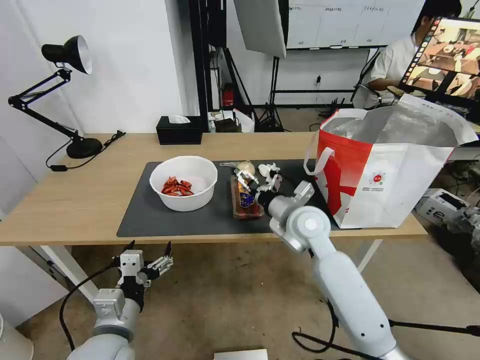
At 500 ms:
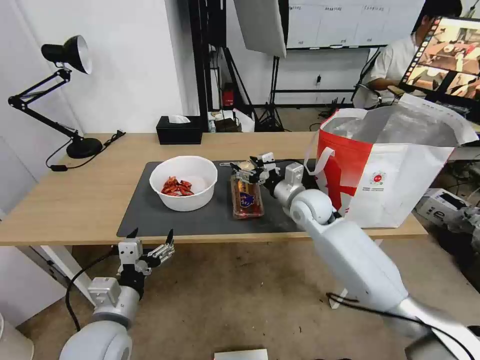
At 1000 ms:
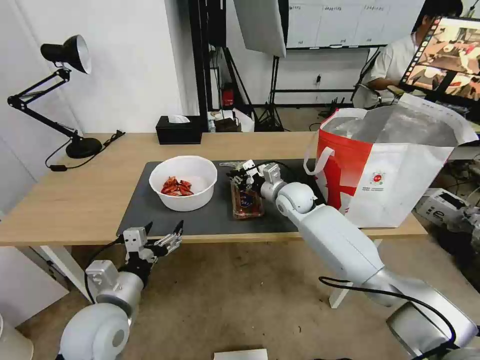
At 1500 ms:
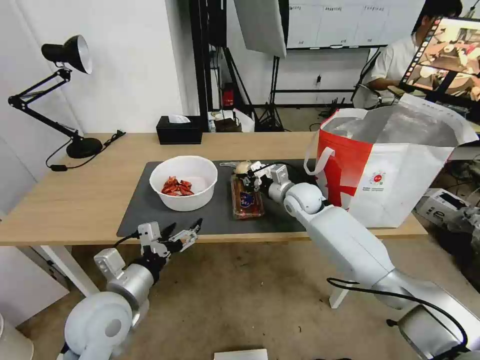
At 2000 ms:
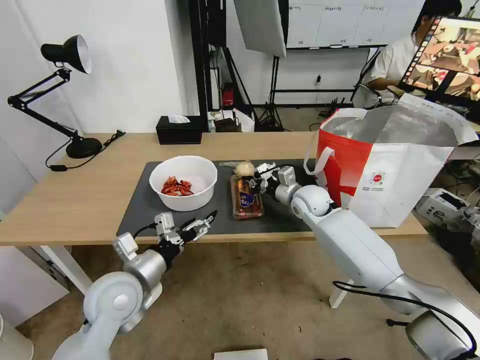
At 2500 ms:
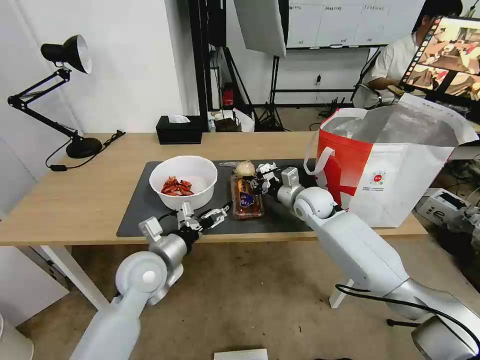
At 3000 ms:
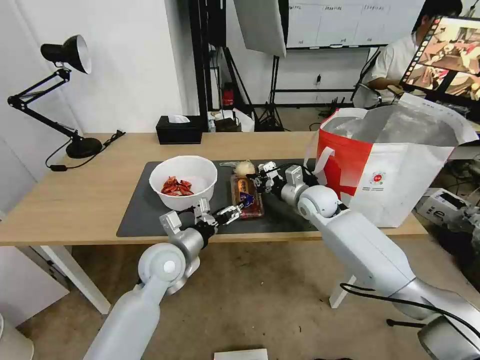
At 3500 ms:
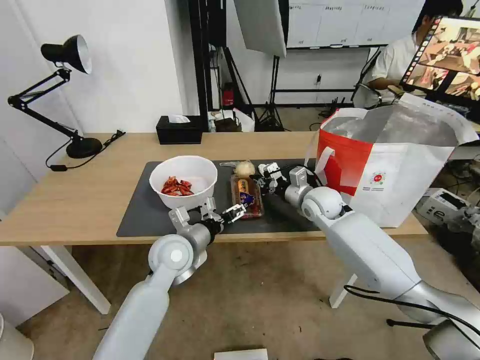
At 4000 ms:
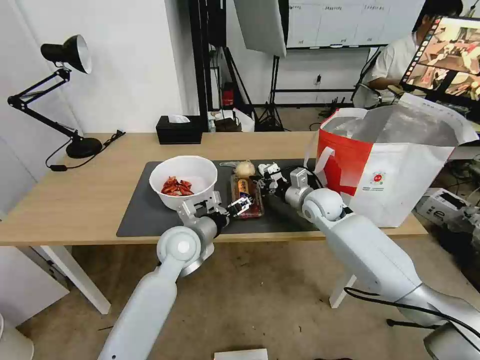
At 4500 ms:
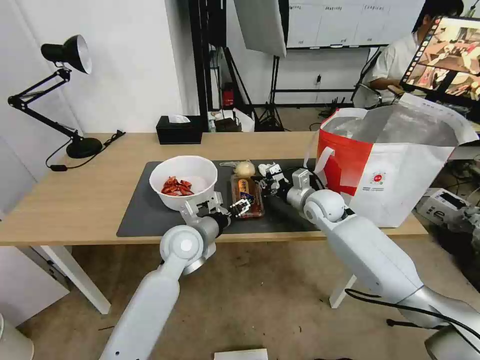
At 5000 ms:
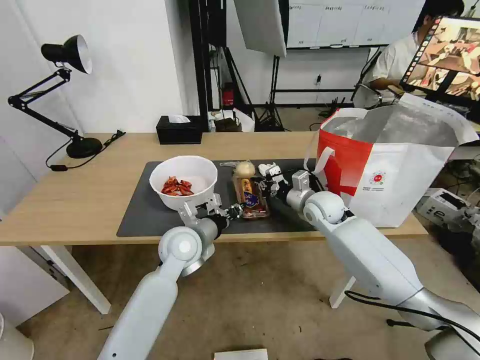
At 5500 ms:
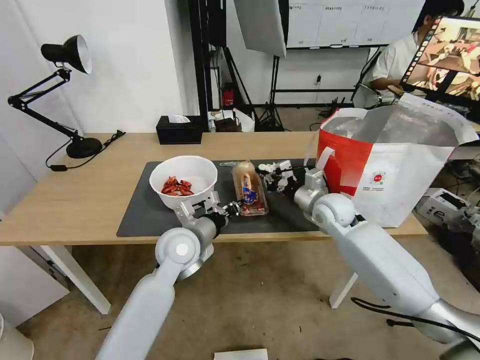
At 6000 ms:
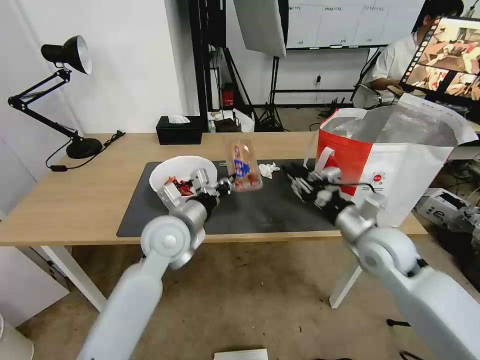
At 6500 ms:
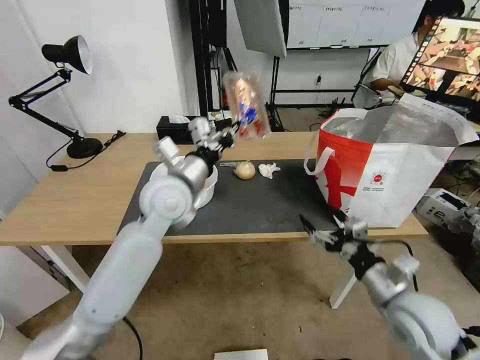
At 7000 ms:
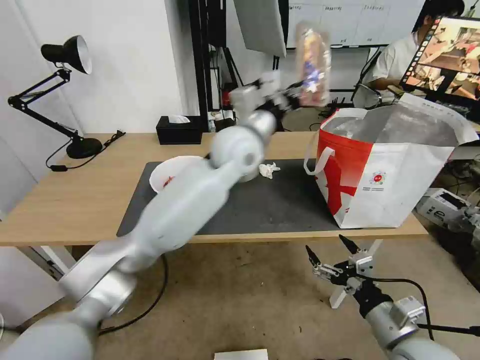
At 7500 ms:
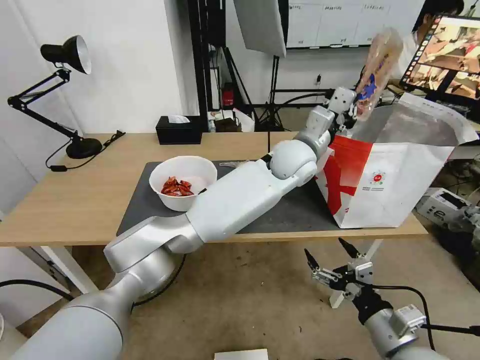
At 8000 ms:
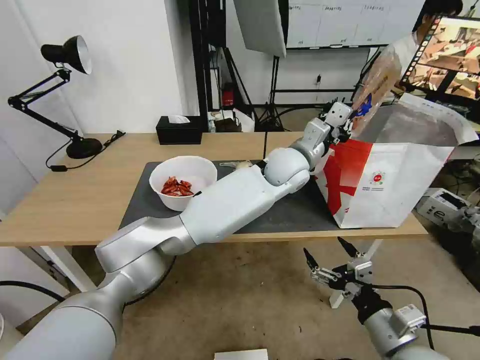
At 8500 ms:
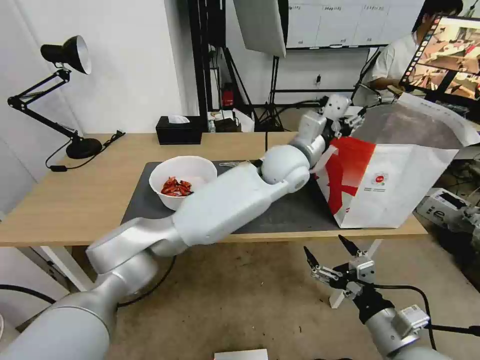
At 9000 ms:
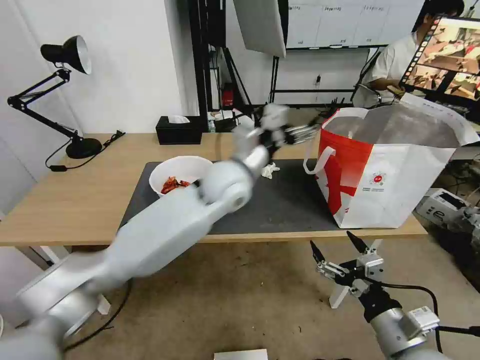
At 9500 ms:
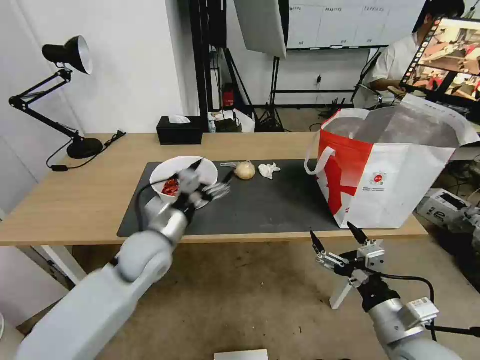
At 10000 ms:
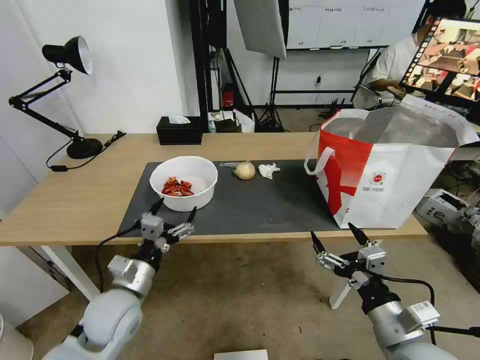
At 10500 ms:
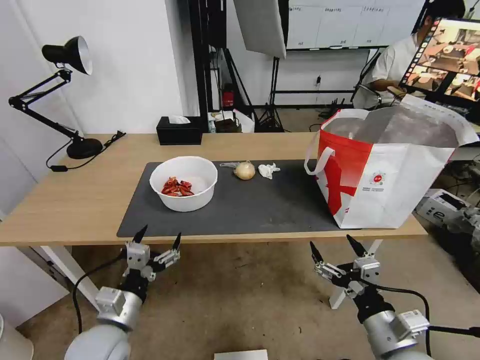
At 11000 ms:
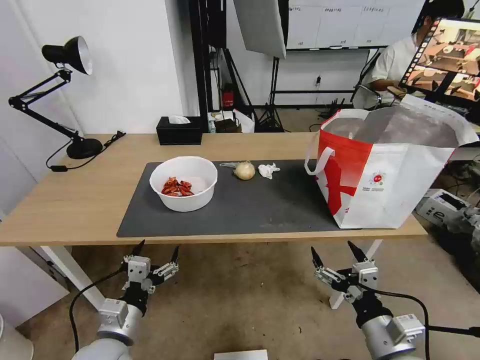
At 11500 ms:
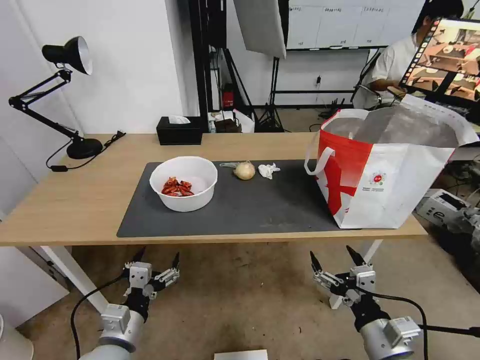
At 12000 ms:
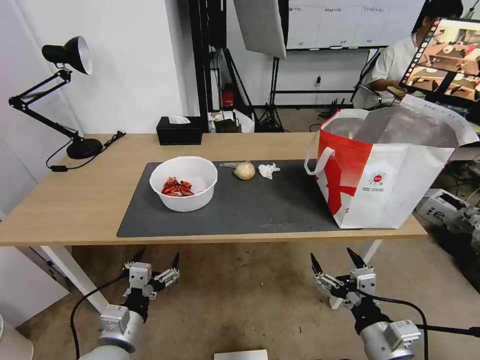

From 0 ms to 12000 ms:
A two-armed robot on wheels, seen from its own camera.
Task of the whole recording: Pick up the trash from the table and place it into the takeout bag.
From 0 ms to 2000 ms: Both grippers move forward, some 10 cm. The right gripper closes.
From 2000 ms to 4000 ms: The left gripper goes some 15 cm forward and to the right.
From 4000 ms to 6000 ms: The right gripper heads backward and to the right, covering roughly 15 cm, and opens, while the left gripper moves upward, approximately 5 cm, and closes.
From 6000 ms to 8000 ms: The right gripper is displaced backward by roughly 20 cm, and opens its fingers. Meanwhile the left gripper travels to the right and forward by some 30 cm.
From 8000 ms to 10000 ms: The left gripper shifts approximately 50 cm to the left, backward and downward, and opens its fingers.
From 10000 ms to 12000 ms: The left gripper travels backward by about 10 cm.

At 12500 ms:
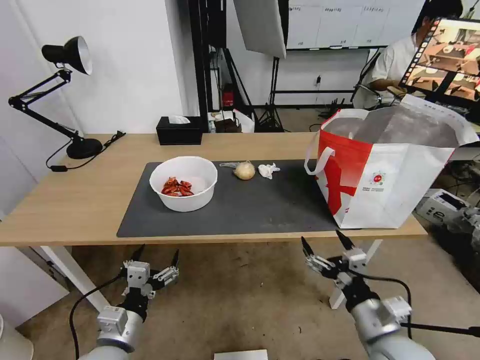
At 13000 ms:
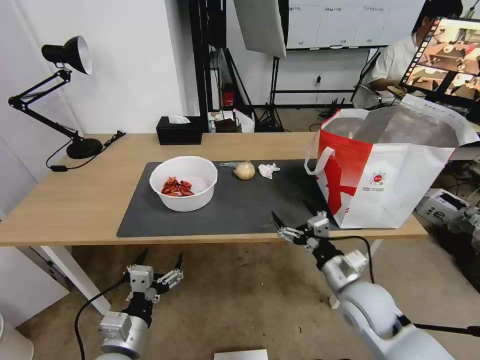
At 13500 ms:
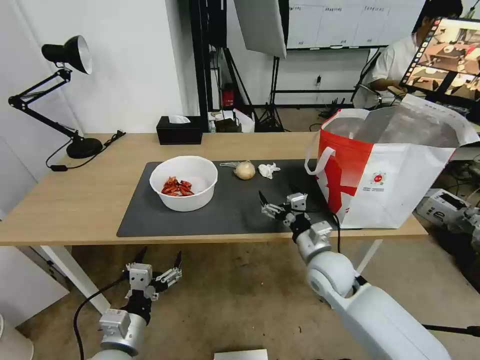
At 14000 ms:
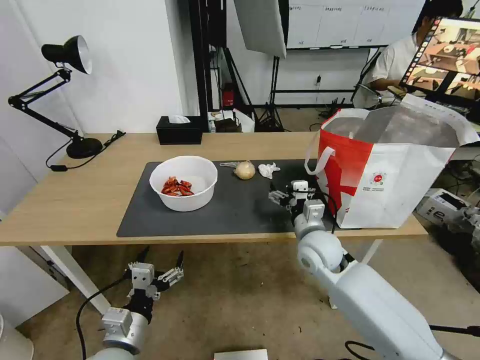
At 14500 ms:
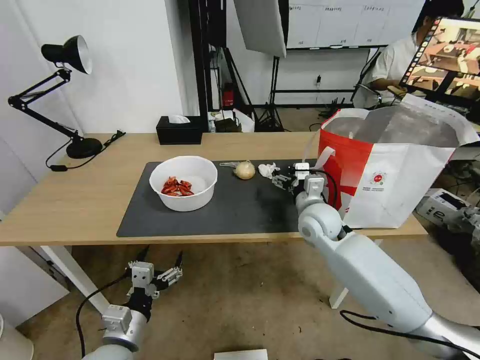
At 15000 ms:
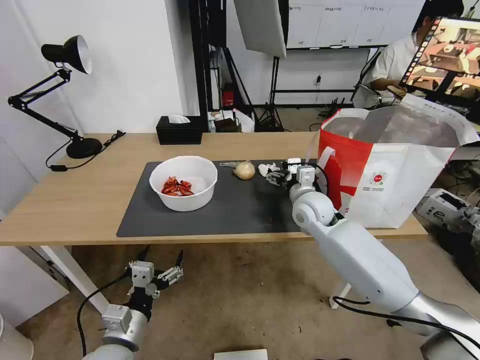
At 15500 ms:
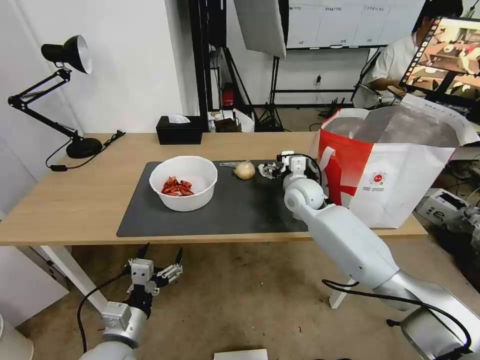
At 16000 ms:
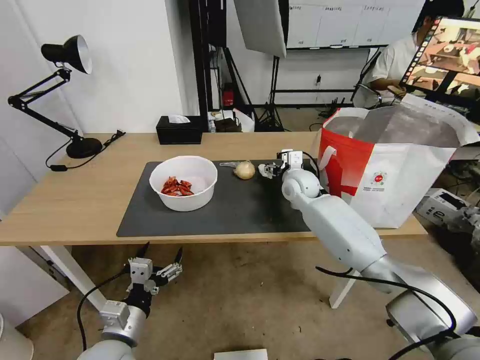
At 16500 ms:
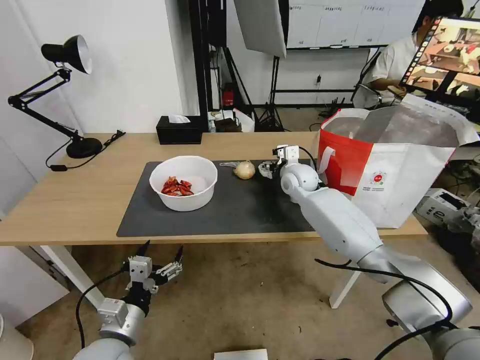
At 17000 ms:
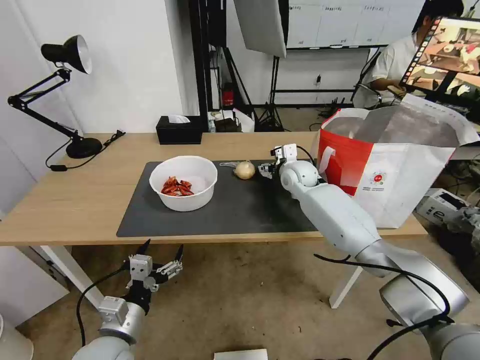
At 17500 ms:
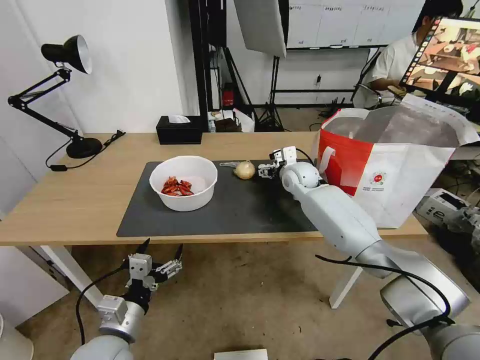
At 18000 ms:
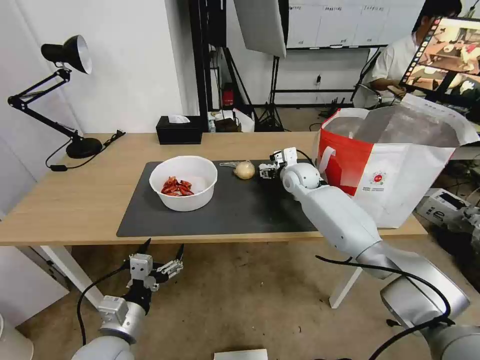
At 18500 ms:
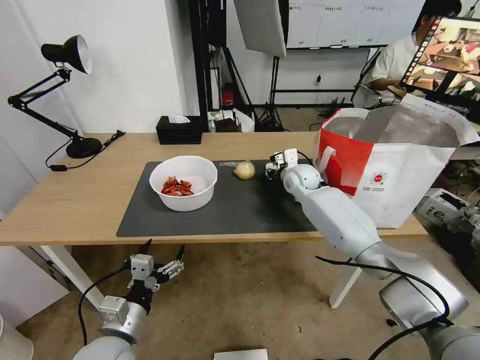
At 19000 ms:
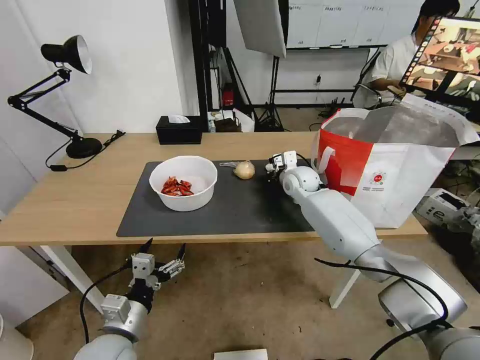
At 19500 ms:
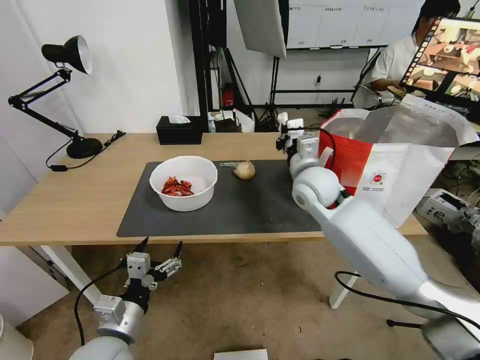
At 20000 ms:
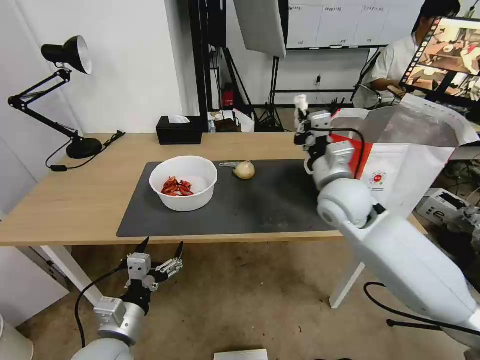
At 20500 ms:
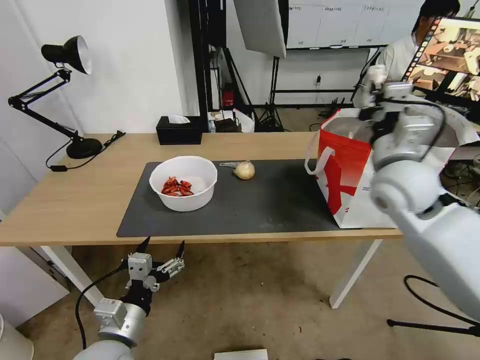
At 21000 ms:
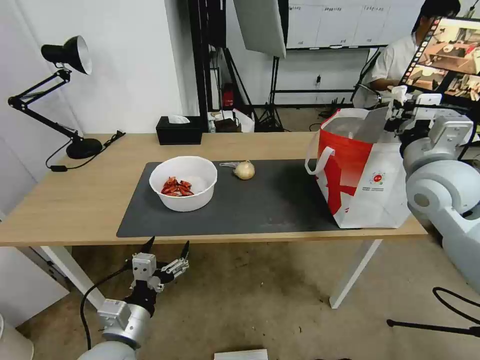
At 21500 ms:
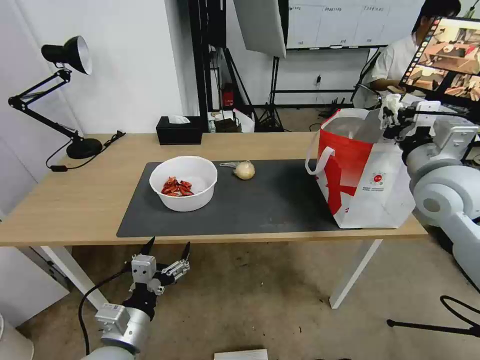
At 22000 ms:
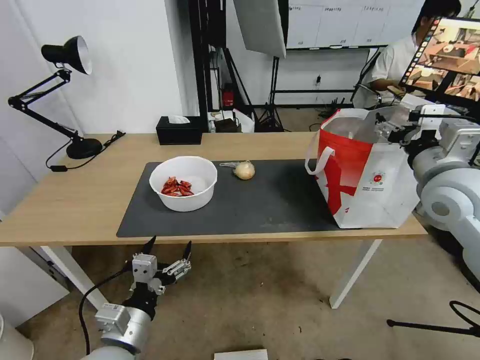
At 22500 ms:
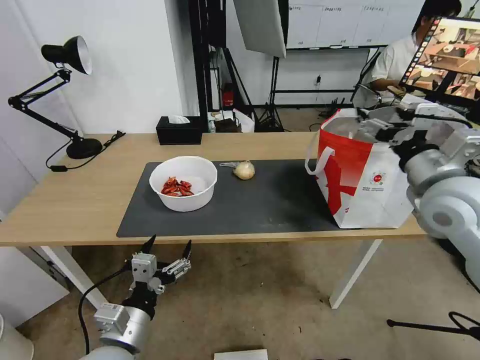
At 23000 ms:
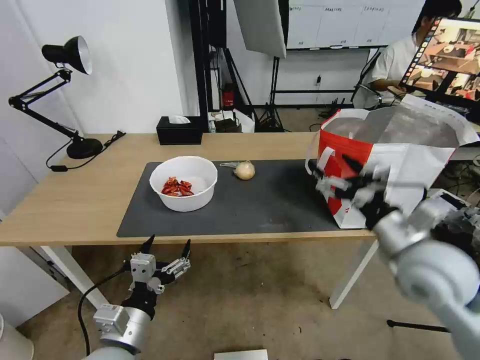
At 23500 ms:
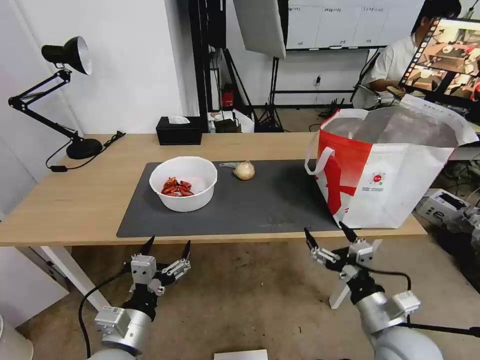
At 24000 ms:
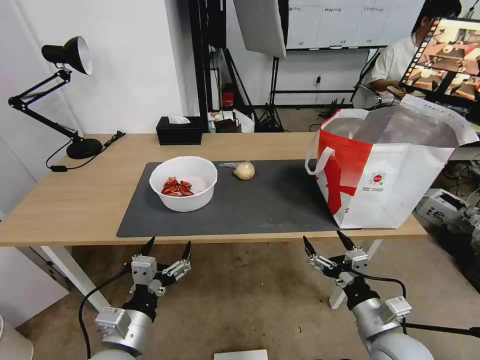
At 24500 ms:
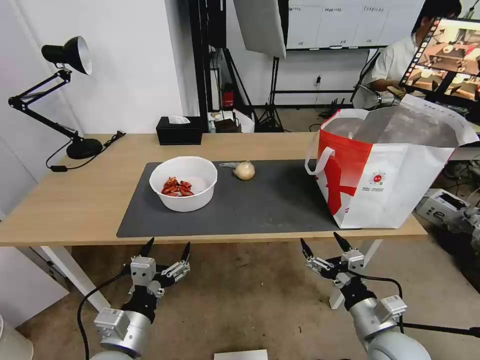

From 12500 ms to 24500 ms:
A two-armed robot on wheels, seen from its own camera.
Task of the whole recording: Pick up the trash from the table and place it into the takeout bag.
From 12500 ms to 14500 ms: The right gripper is displaced forward by roughly 25 cm.
From 14500 ms to 16500 ms: The right gripper heads forward, covering some 15 cm.
From 16500 ms to 18500 ms: The right gripper closes.
From 18500 ms to 20500 ms: The right gripper travels backward, upward and to the right by about 25 cm.
From 20500 ms to 22500 ms: The right gripper shifts some 10 cm to the right and backward, and opens up.
From 22500 ms to 24500 ms: The right gripper heads downward and backward, covering some 30 cm.

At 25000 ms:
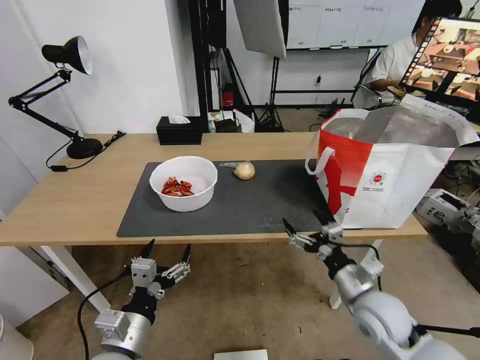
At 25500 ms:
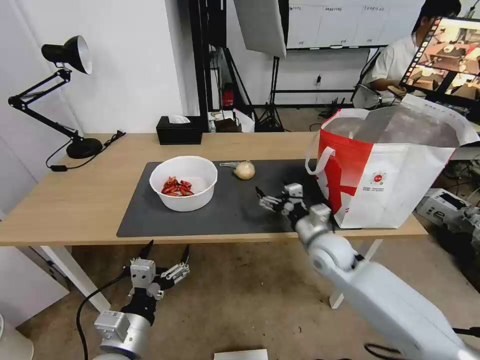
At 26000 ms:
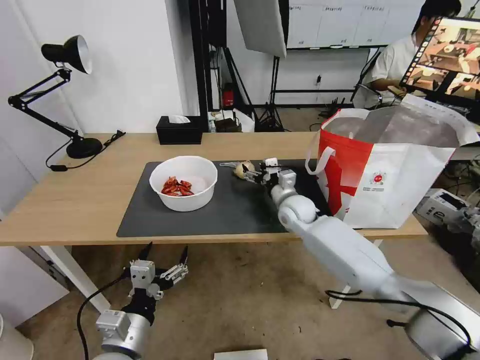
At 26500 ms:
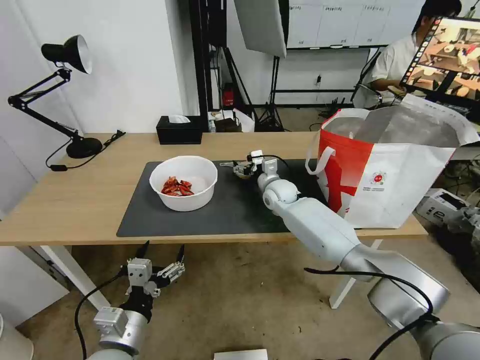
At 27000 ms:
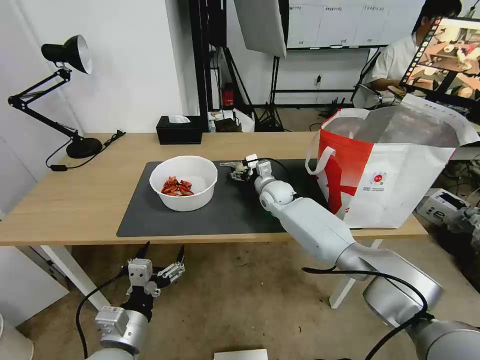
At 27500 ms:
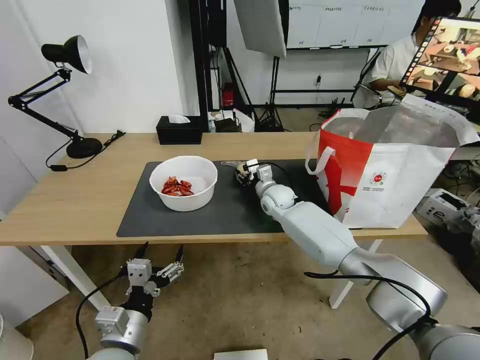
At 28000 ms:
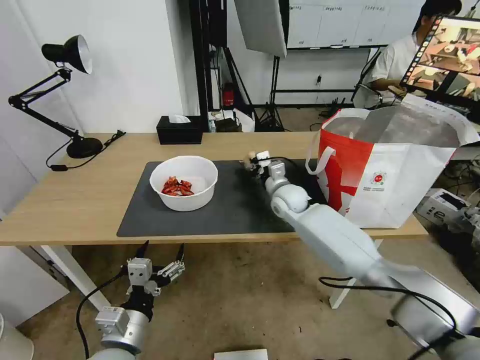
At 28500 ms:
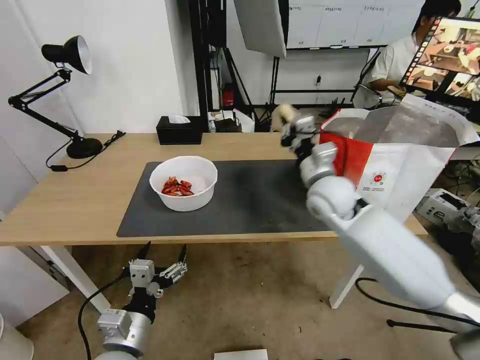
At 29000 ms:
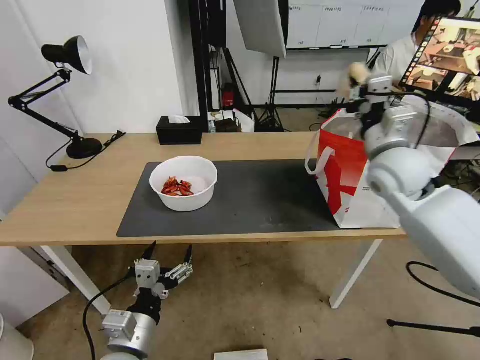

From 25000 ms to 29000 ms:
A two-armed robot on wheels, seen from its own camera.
Task of the whole recording: Pick up the trash from the table and place it into the takeout bag.
From 25000 ms to 27000 ms: The right gripper shifts approximately 35 cm forward and to the left.
From 27000 ms to 29000 ms: The right gripper goes about 30 cm upward, to the right and backward, and closes.
